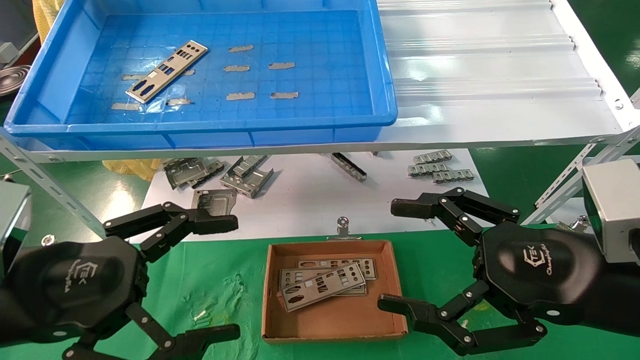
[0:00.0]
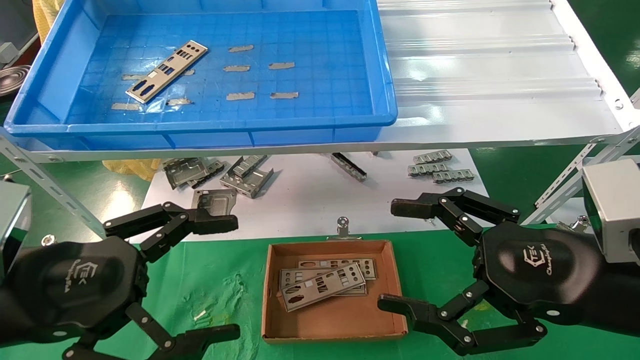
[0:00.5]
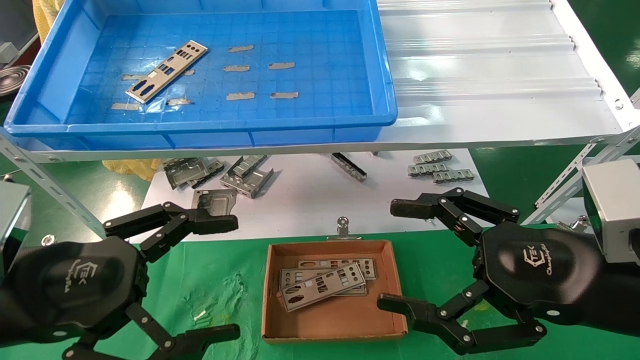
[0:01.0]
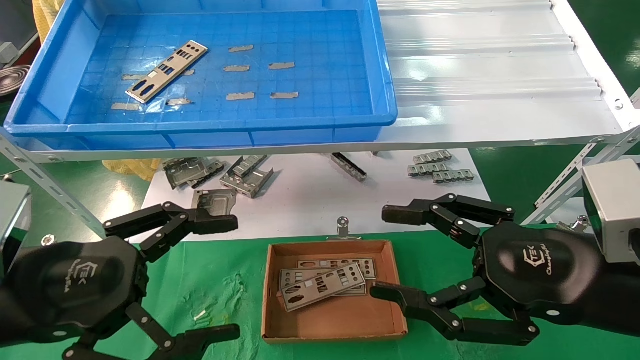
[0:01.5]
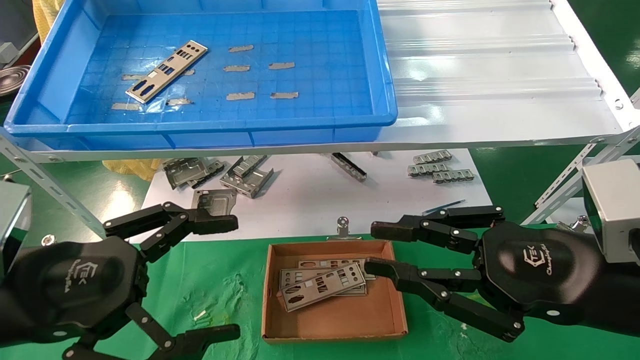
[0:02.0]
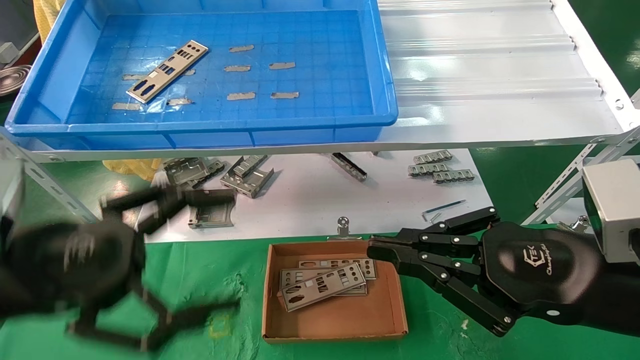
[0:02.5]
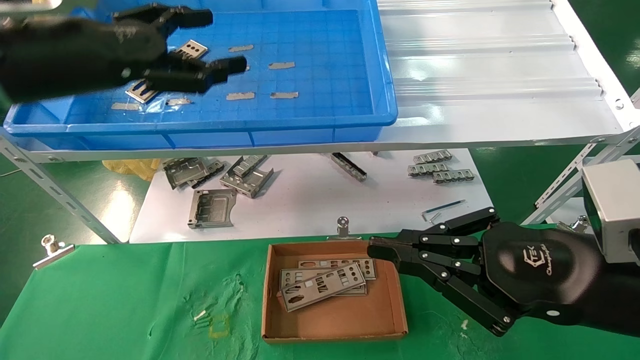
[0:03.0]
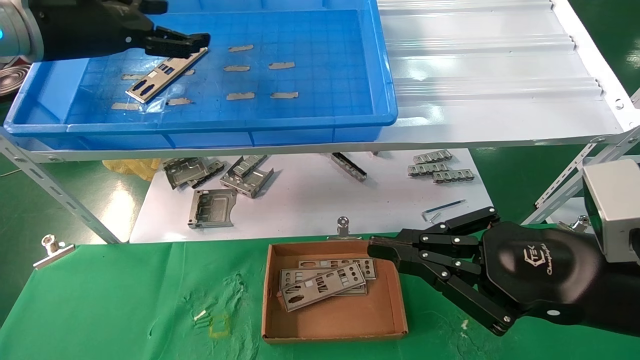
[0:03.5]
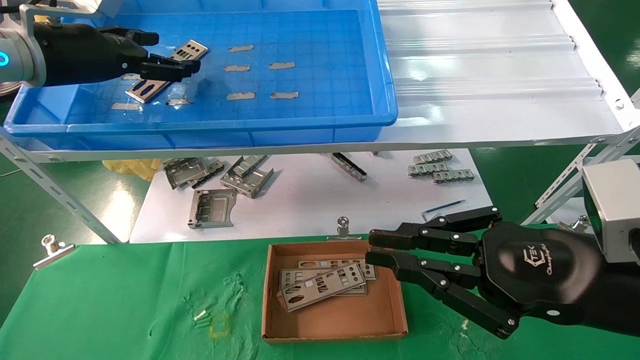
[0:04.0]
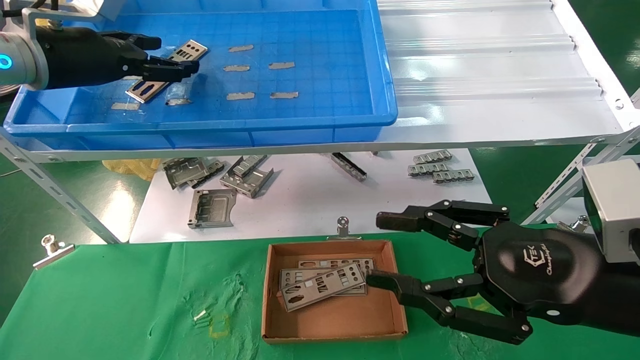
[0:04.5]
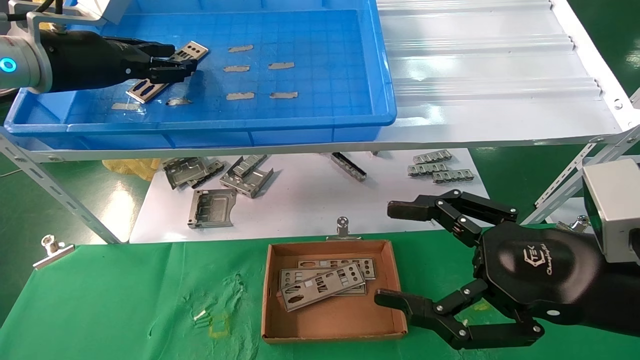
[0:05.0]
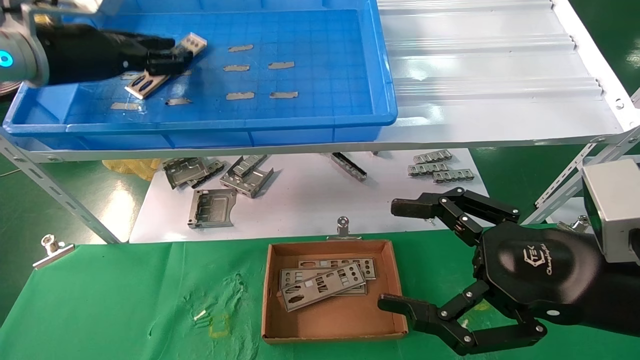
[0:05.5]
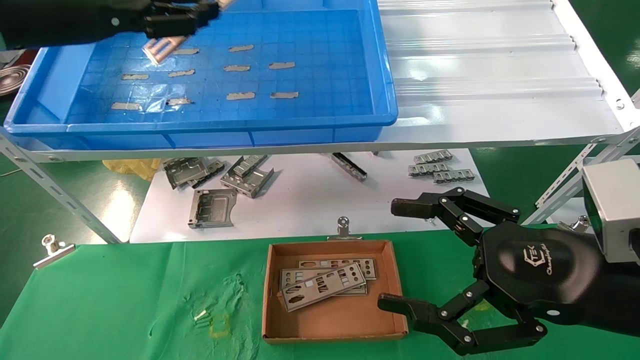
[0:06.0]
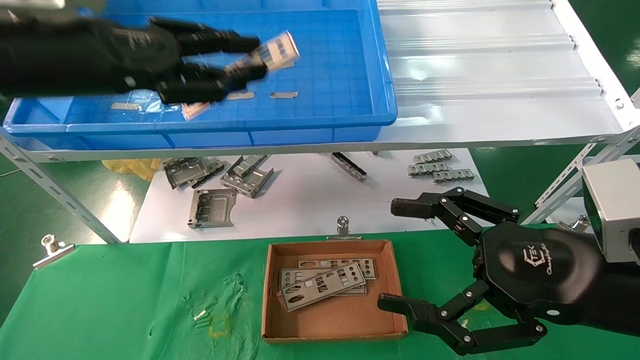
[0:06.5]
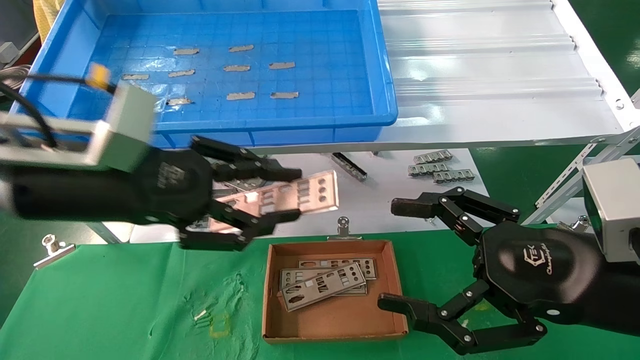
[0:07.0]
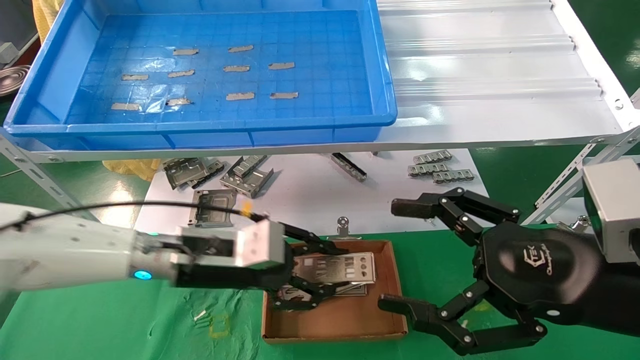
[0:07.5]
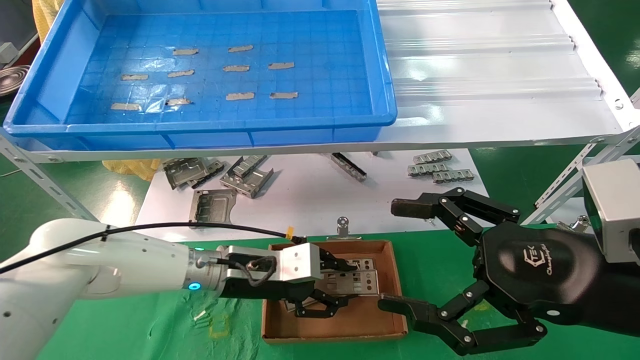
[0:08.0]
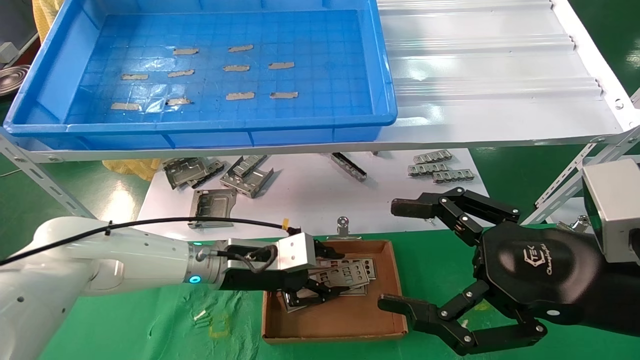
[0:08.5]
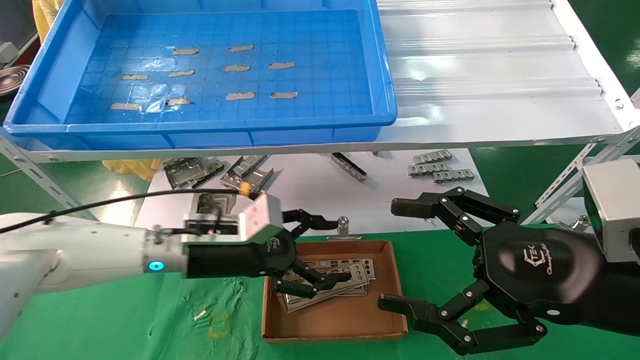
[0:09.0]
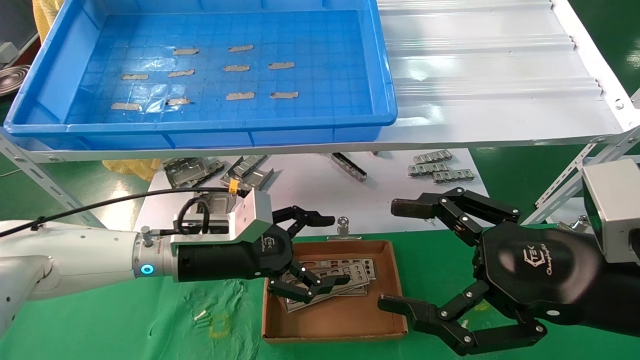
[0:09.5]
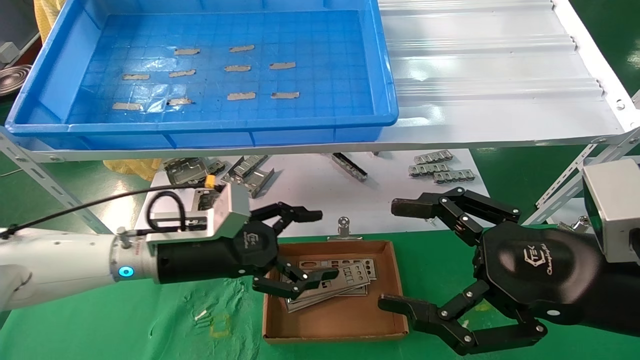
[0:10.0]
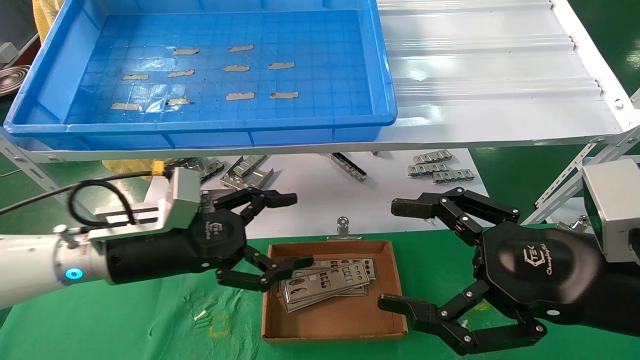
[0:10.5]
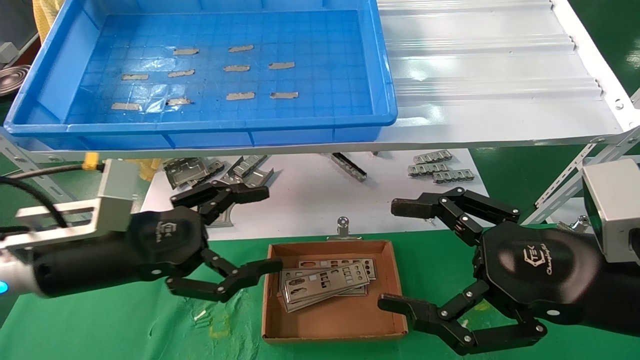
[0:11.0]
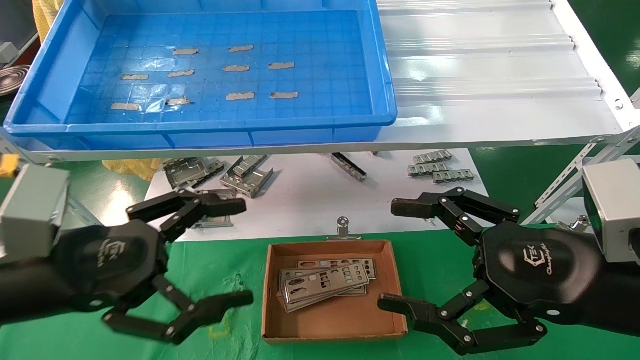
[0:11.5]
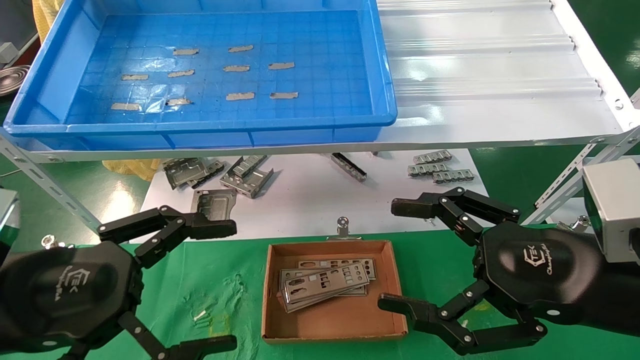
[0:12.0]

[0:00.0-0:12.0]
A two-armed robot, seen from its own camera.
Task of the whole recording: pick up the parts on the tray and put them in the cardboard box.
Step, 0:03.0 to 0:05.0: Pick up the IO bracket from the container box.
Step, 0:05.5 to 0:08.0: Place the IO bracket into the ingredient slot.
0:00.0 to 0:02.0: The right gripper closes its fingers.
0:02.0 to 0:04.0: The left gripper moves forward and upward, about 30 cm.
0:04.0 to 0:06.0: The left gripper shifts approximately 5 cm backward, and closes. Meanwhile the right gripper opens its fingers.
0:06.0 to 0:08.0: The left gripper is displaced downward and to the right by some 35 cm.
0:08.0 to 0:10.0: The left gripper goes approximately 5 cm to the left, and opens.
0:10.0 to 0:12.0: The left gripper is displaced backward and to the left by about 20 cm.

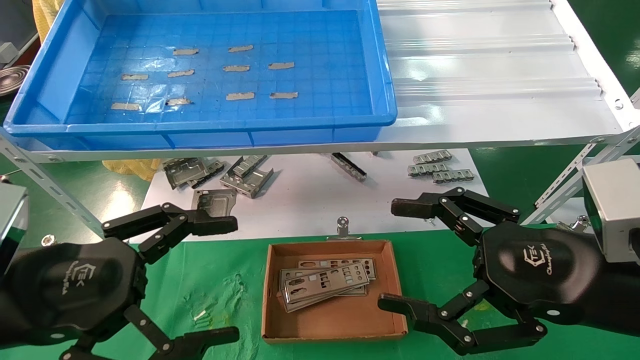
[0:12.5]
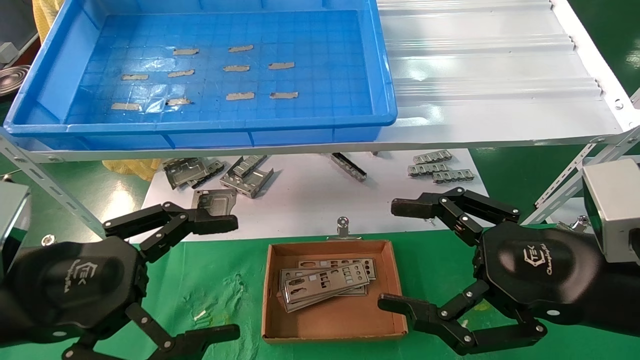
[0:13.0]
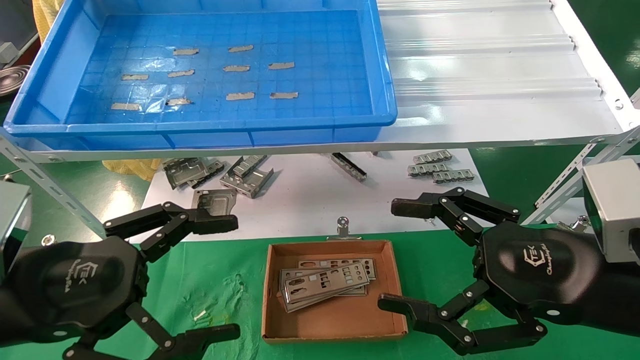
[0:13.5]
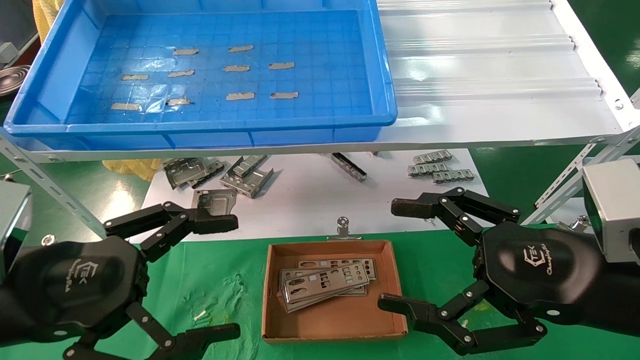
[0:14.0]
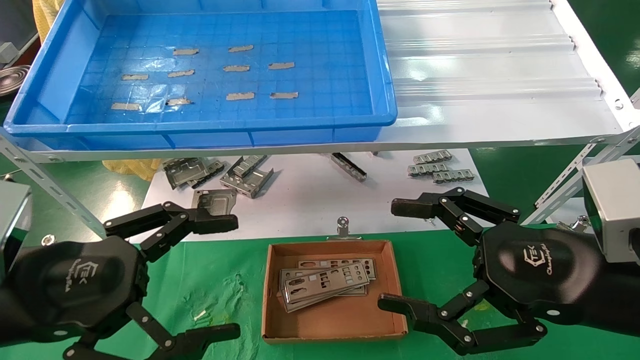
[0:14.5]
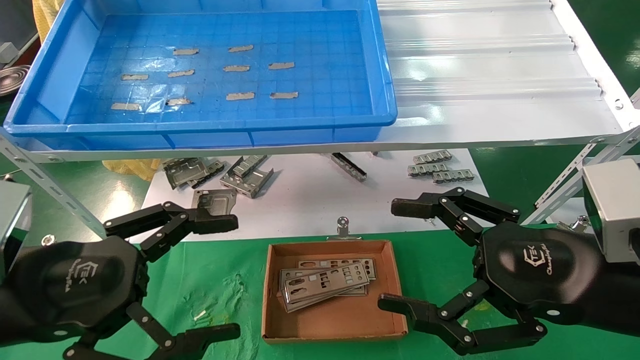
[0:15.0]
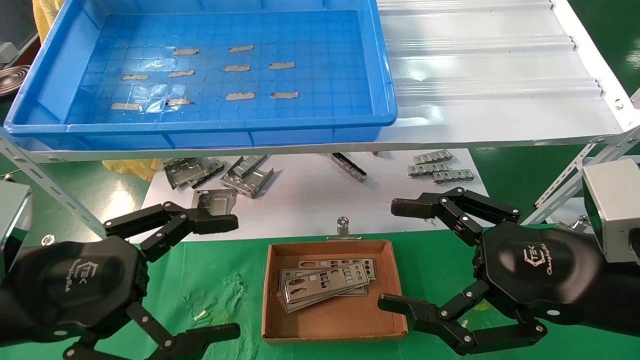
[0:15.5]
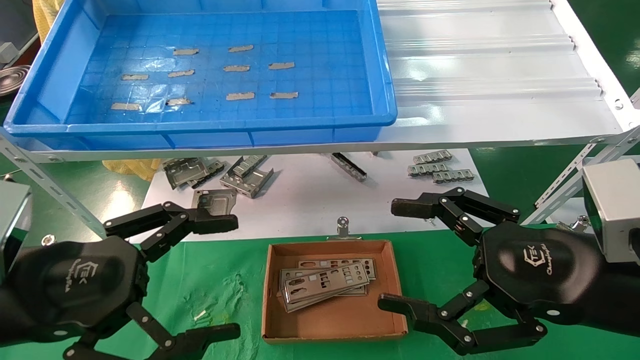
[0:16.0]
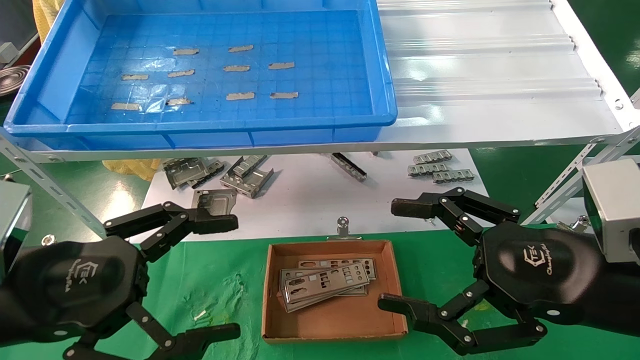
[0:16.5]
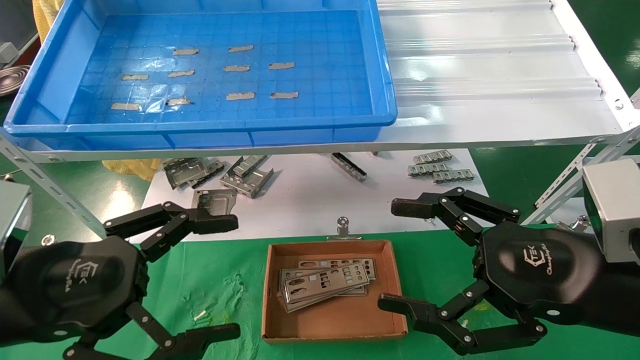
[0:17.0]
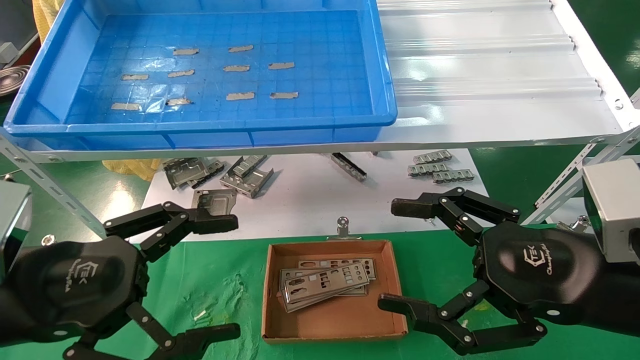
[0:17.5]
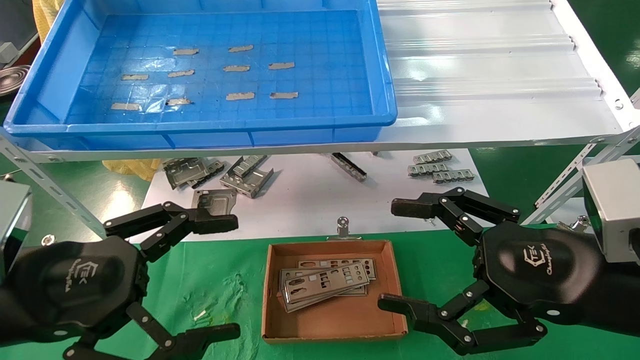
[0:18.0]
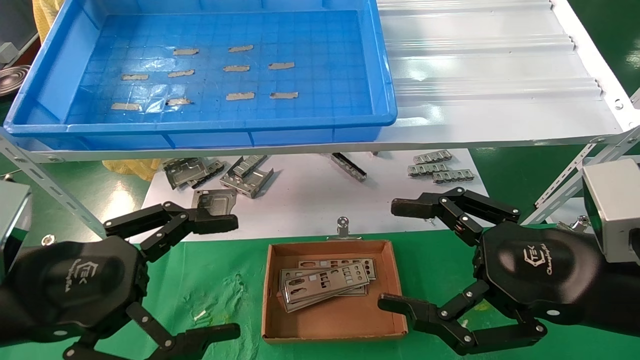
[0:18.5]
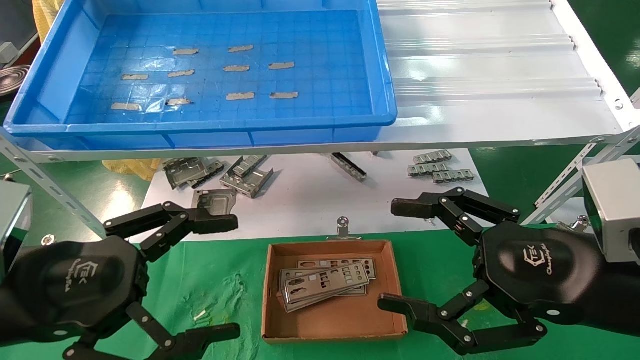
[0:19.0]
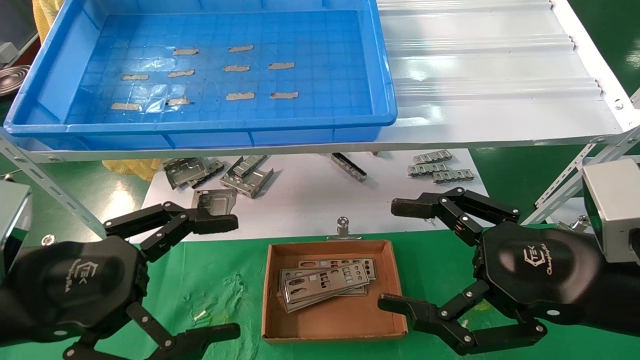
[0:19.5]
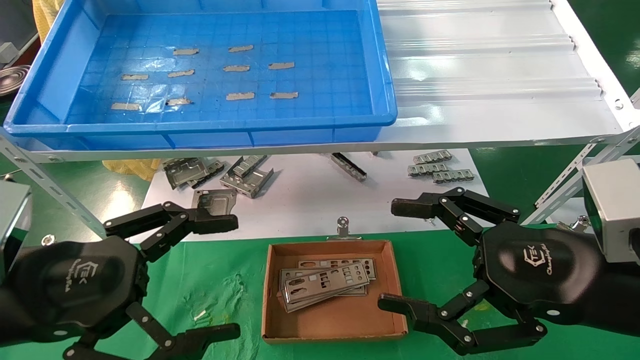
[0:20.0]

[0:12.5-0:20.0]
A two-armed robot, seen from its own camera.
Task of the whole recording: pick up the parts on the tray and put them in the cardboard box.
0:12.5 to 0:20.0: The two grippers keep their place.
